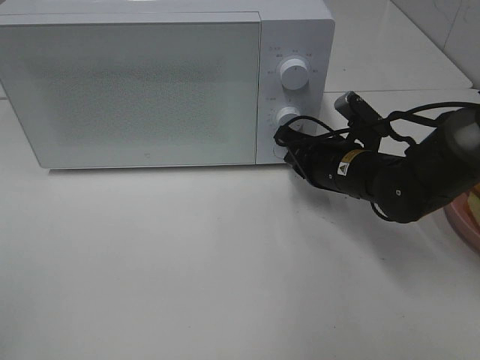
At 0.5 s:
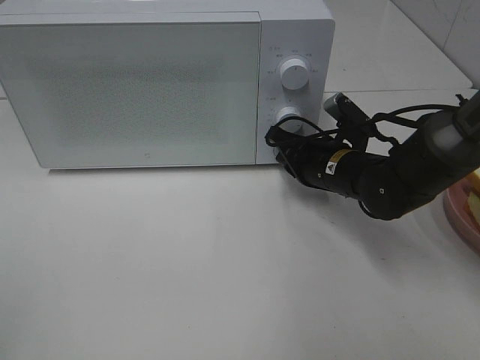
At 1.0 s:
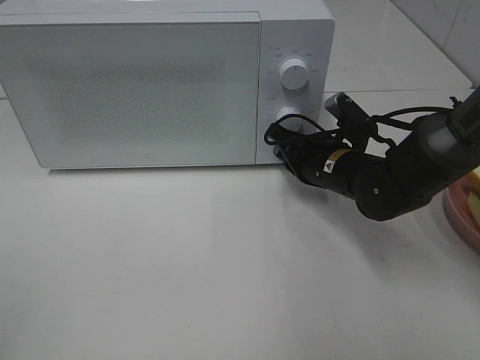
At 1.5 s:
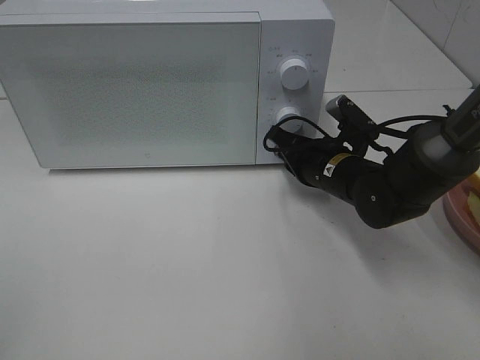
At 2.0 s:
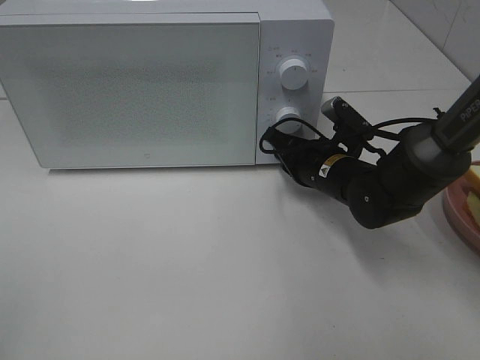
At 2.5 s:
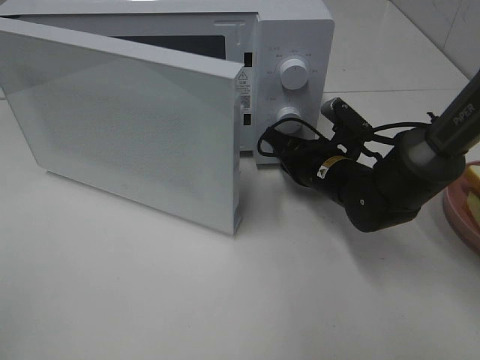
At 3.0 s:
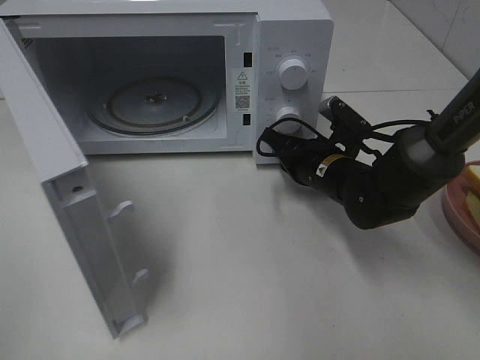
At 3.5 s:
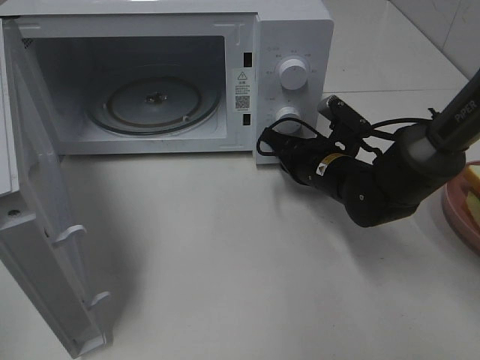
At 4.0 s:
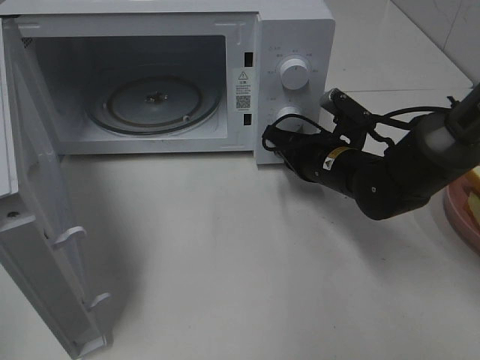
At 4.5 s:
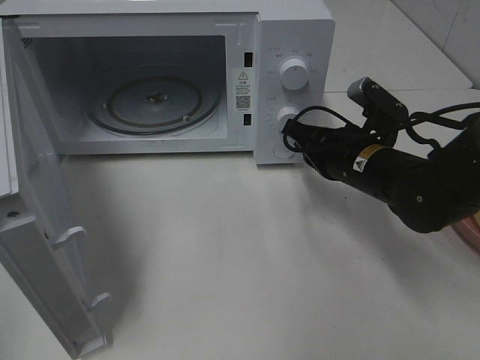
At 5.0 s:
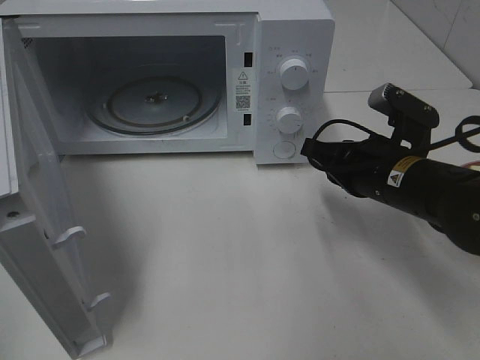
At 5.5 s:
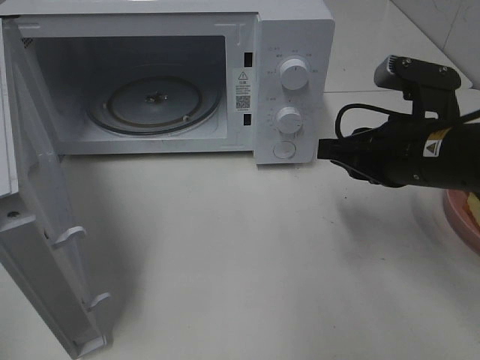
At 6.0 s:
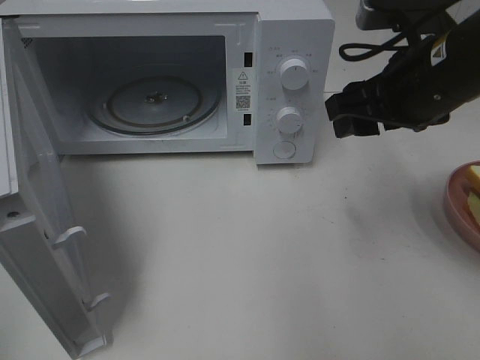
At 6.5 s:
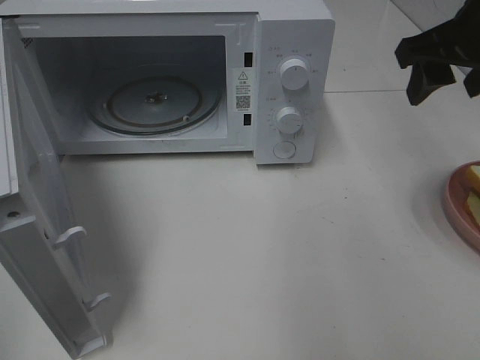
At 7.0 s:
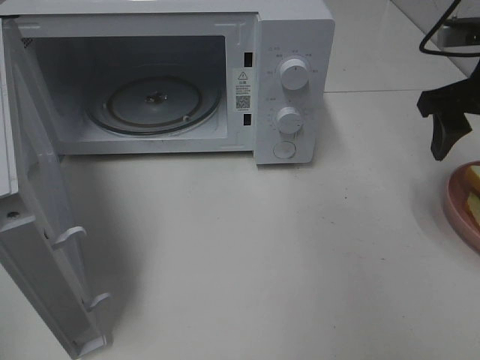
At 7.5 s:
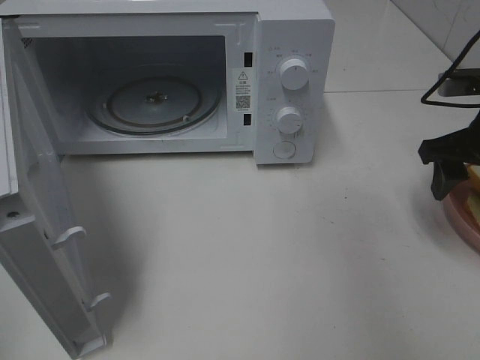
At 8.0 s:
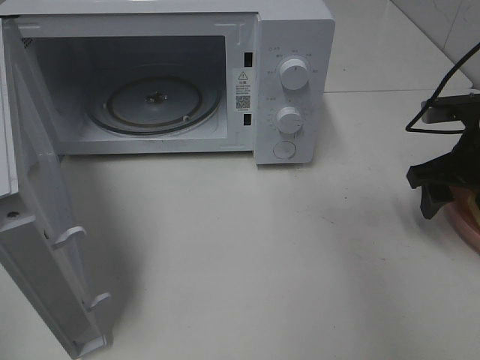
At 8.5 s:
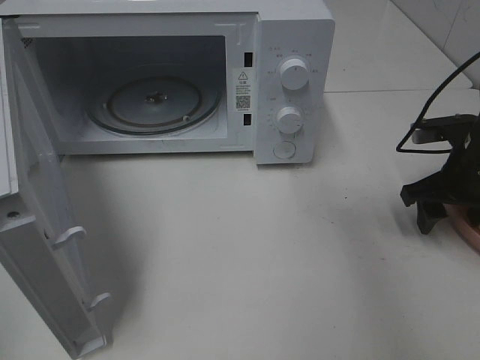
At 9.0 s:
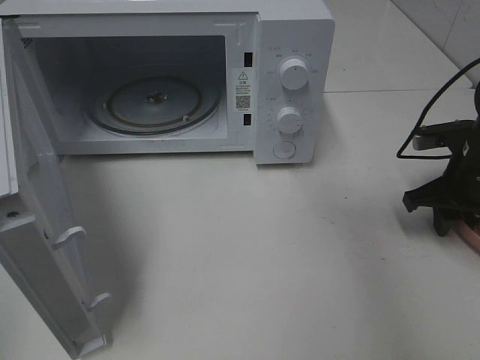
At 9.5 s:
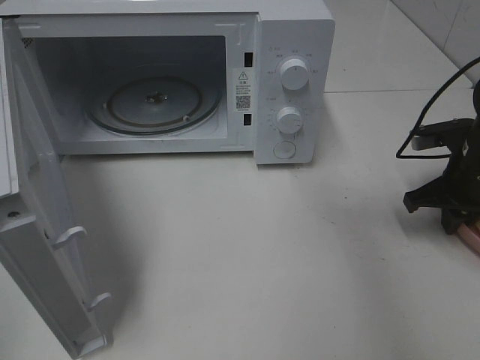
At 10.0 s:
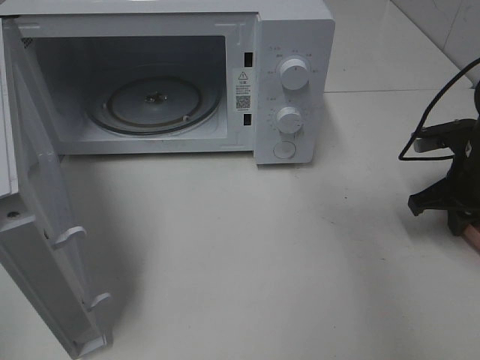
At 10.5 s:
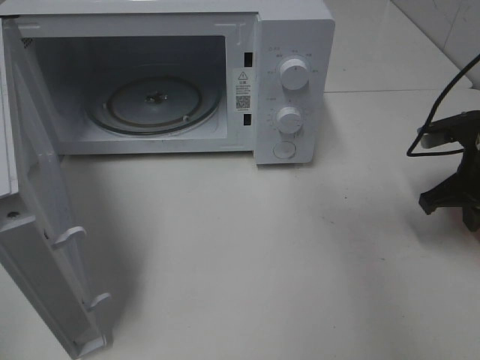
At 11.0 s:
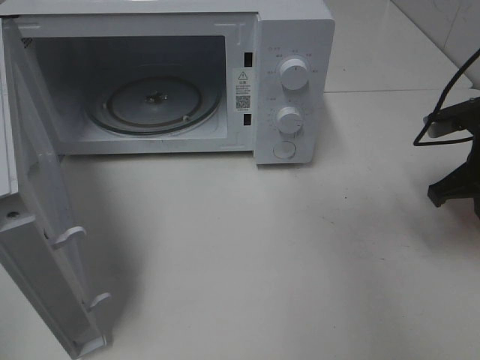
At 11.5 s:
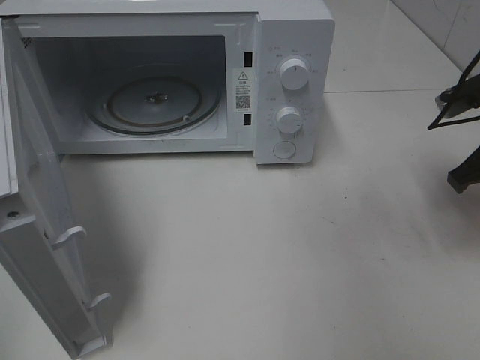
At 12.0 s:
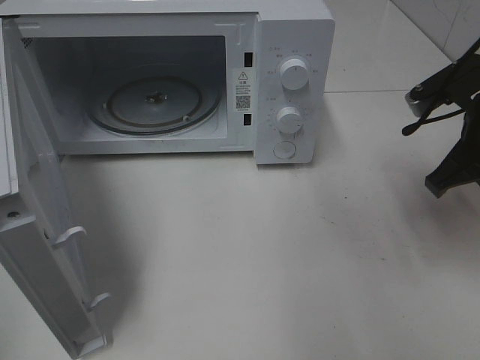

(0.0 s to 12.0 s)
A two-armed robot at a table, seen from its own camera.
Task of the whole recording: Heat Sandwich.
Step, 0.0 s - 4.5 s: Right hand: press the switch.
Step, 5.0 s - 9.5 s: Right hand: grab the plate with the sandwich.
0.0 s - 2.0 s: The grippers move only a little.
4.0 s - 6.0 s: The right gripper is displaced upward and backward by about 20 cm, and opens.
6.0 s - 8.0 s: The right gripper is displaced to the right and downward by some 15 cm.
8.0 s - 10.0 s: The right gripper closes up.
10.0 s - 12.0 s: The right gripper shifts approximately 10 cm upward and to the left.

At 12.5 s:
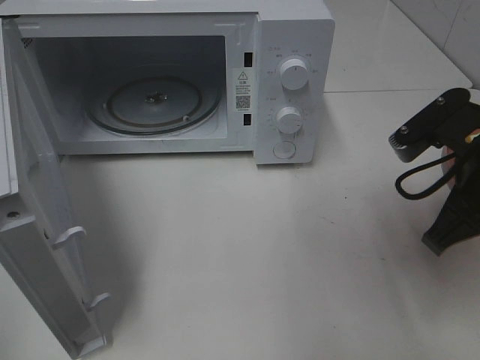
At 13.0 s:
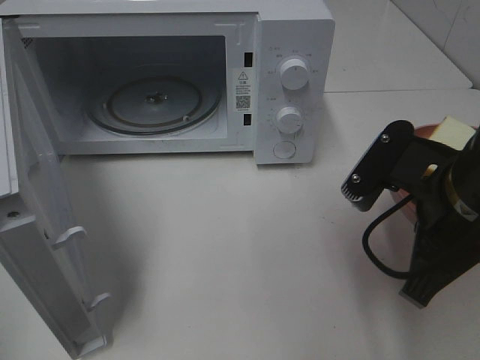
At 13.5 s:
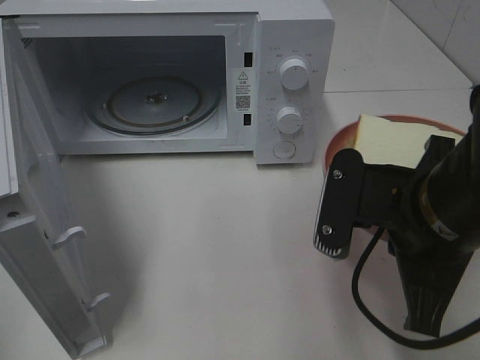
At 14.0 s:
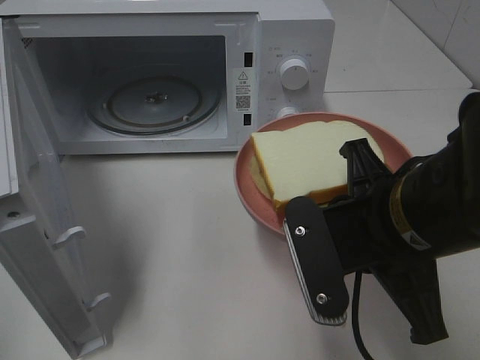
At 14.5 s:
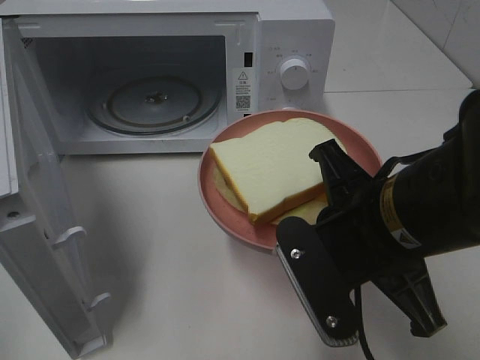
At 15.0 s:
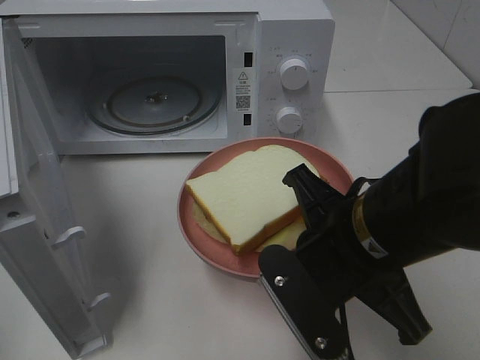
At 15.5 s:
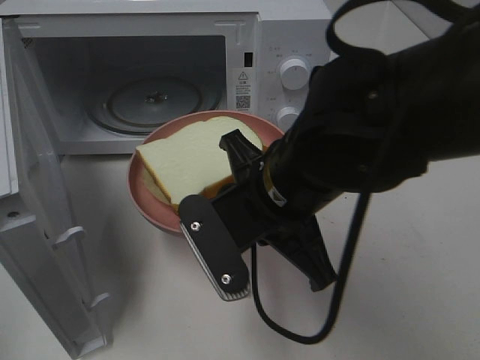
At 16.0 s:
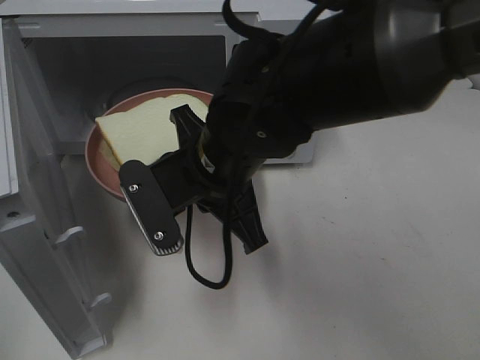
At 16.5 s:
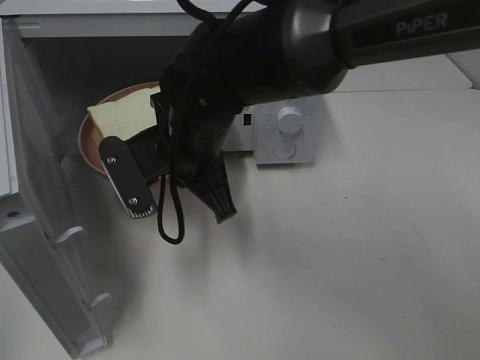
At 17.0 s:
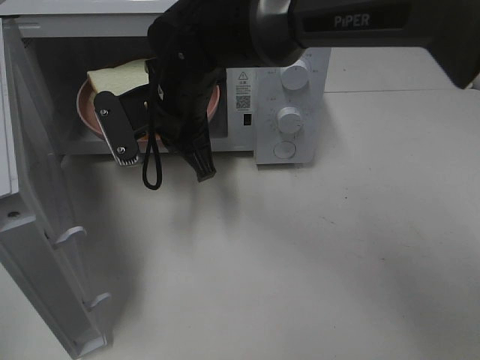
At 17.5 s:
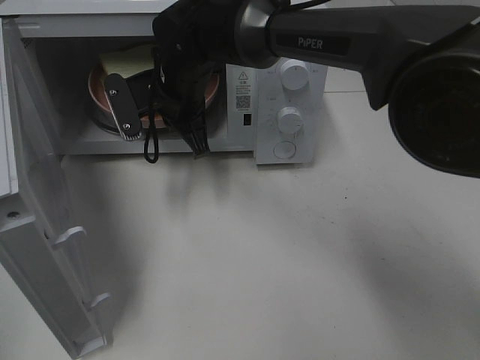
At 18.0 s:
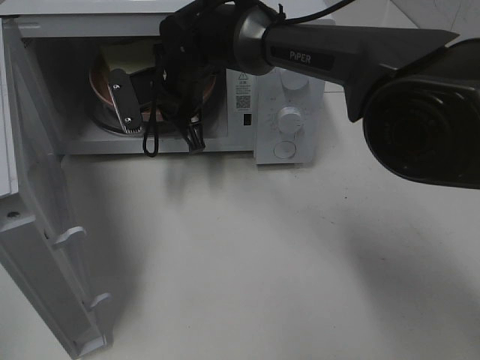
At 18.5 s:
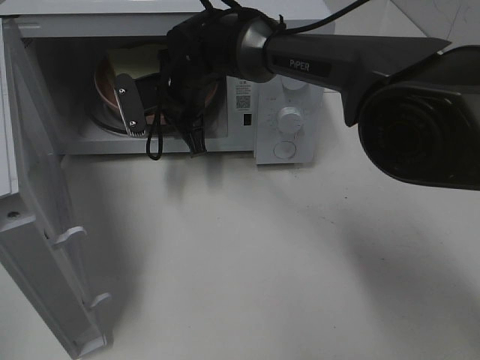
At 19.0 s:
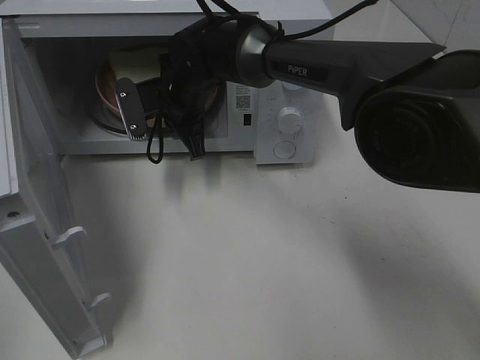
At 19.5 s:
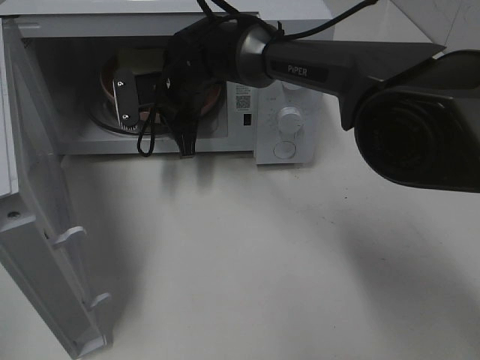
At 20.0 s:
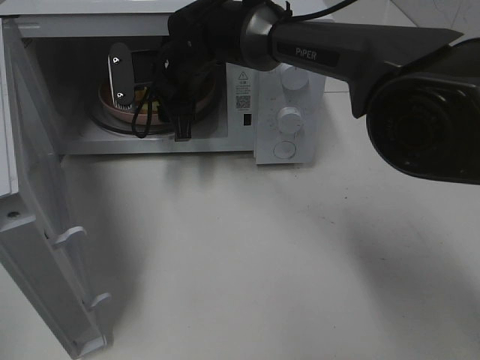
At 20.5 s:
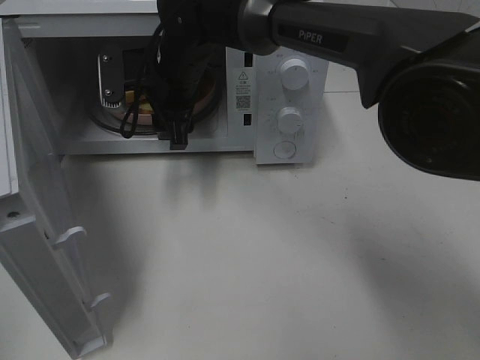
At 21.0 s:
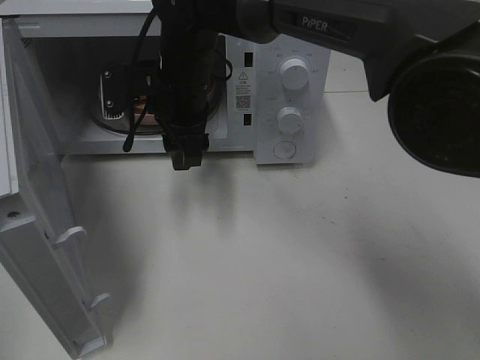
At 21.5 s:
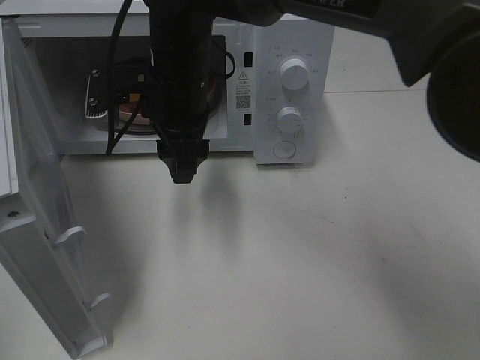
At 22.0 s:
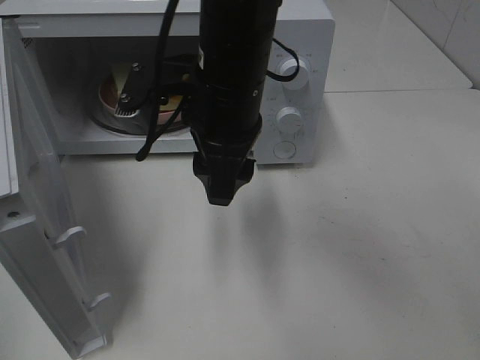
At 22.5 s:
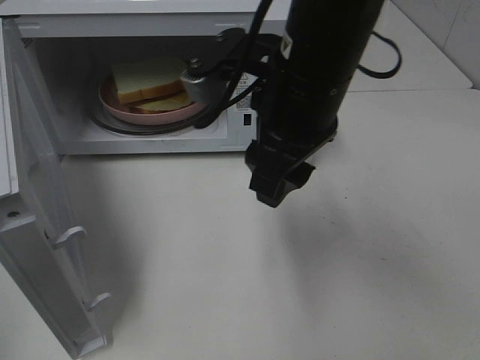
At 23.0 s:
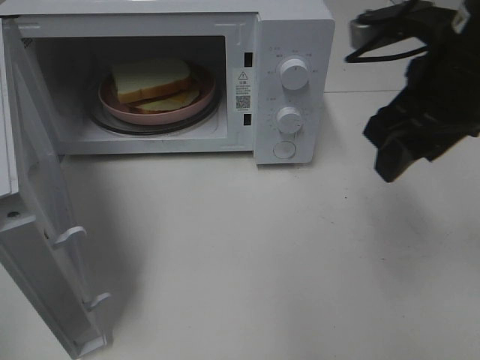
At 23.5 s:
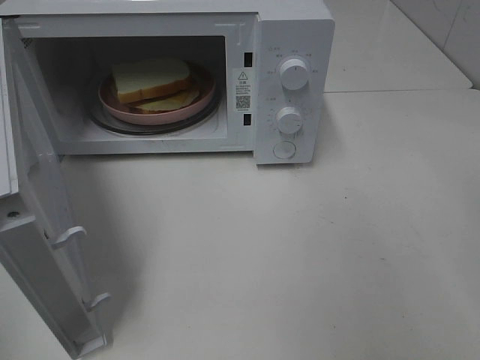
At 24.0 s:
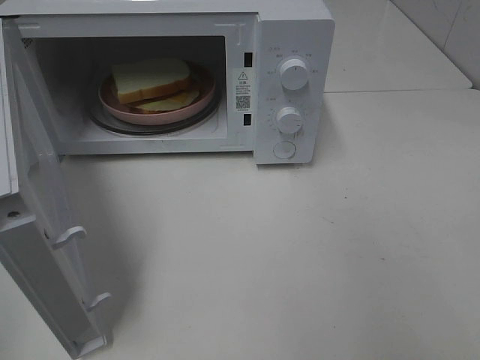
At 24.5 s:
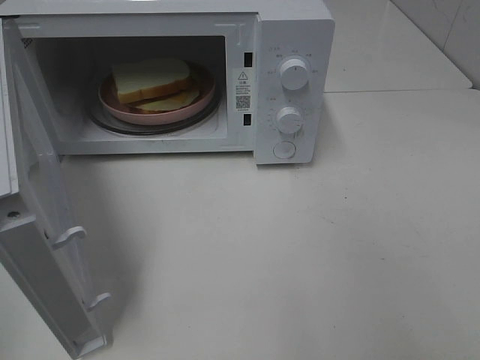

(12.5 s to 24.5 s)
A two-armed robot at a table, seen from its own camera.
Task of the whole recording: Heat Sandwich.
Step, 12.5 s - 20.5 s: Right hand: place the plate in the microwave.
12.5 s - 14.5 s: The right gripper heads to the left and backward, covering some 10 cm.
14.5 s - 16.5 s: The right gripper heads to the left and forward, covering about 20 cm.
16.5 s - 18.5 s: The right gripper moves forward, approximately 15 cm.
18.5 s - 20.5 s: The right gripper opens its fingers.
20.5 s - 22.5 s: The right gripper shifts about 20 cm backward, to the right and upward.
22.5 s - 24.5 s: The right gripper is displaced to the right and backward by roughly 35 cm.

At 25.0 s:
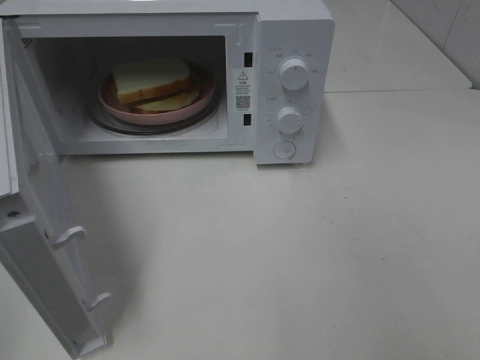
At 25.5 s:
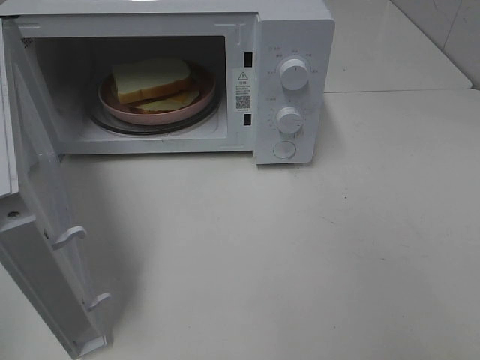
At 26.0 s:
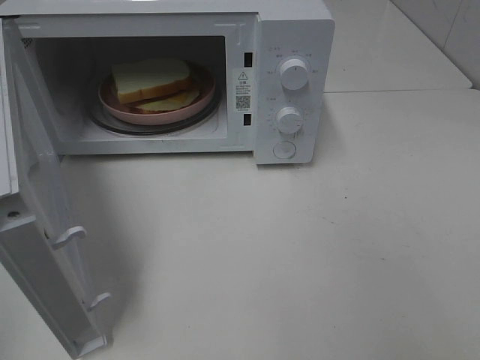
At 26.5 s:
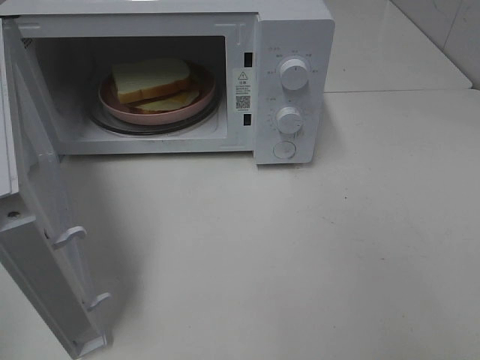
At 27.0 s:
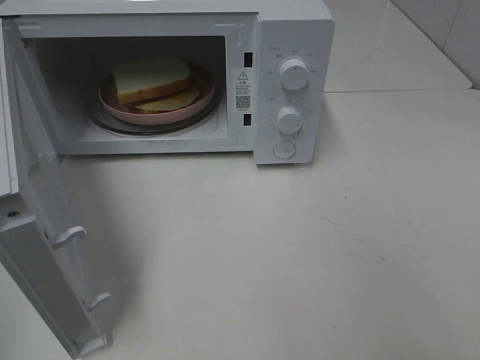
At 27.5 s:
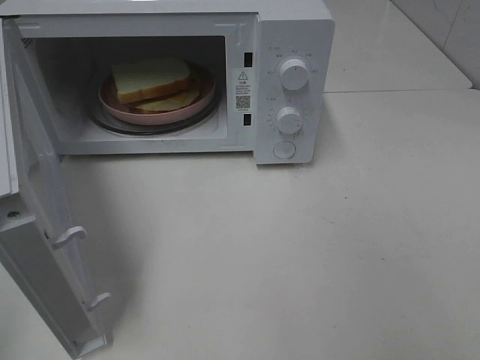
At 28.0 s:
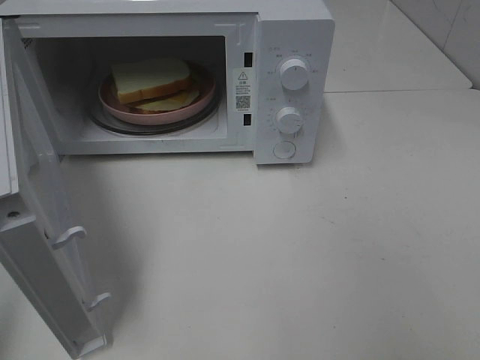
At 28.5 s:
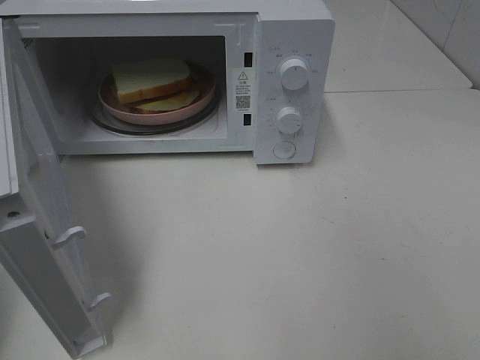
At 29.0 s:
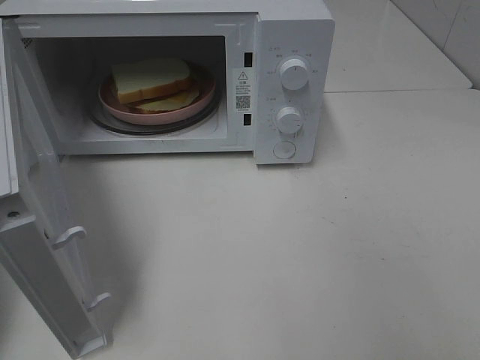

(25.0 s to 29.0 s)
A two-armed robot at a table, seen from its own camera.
Task of the whole recording: Heat Sandwich.
25.0 s - 27.0 s: Both grippers stay put.
